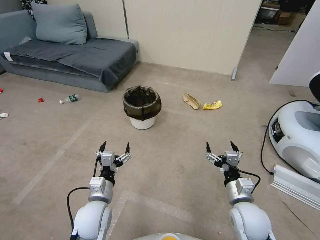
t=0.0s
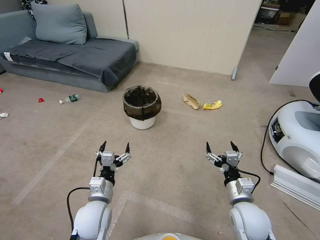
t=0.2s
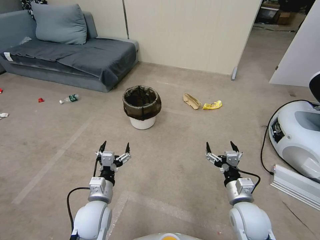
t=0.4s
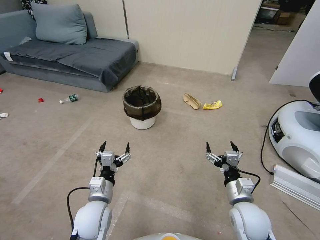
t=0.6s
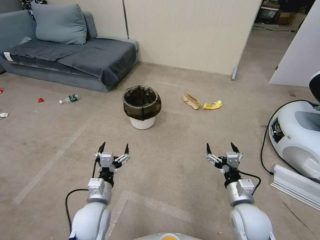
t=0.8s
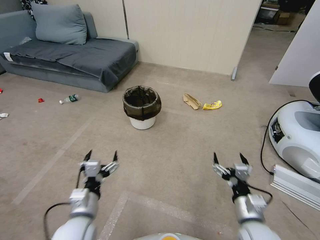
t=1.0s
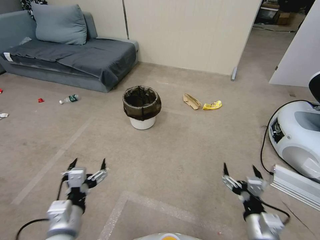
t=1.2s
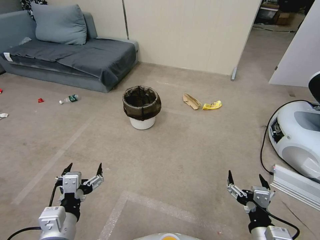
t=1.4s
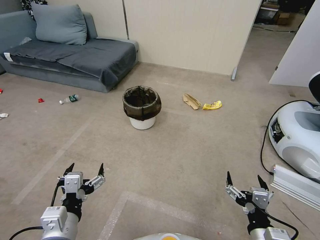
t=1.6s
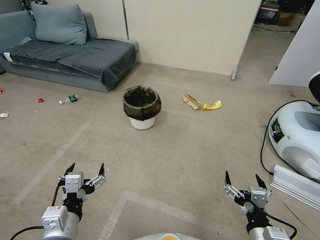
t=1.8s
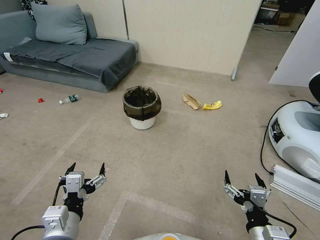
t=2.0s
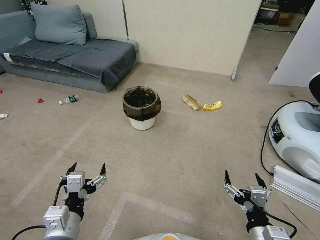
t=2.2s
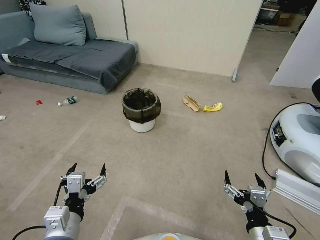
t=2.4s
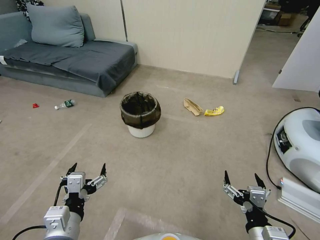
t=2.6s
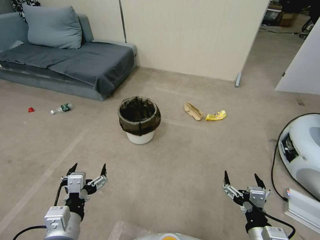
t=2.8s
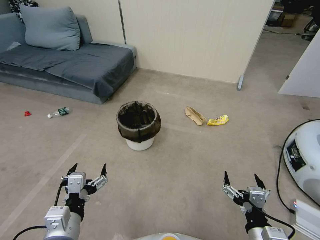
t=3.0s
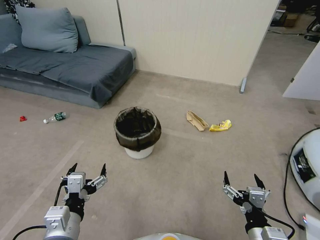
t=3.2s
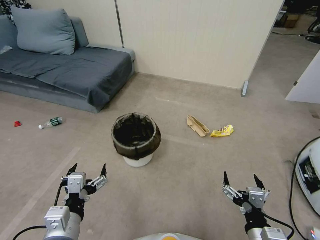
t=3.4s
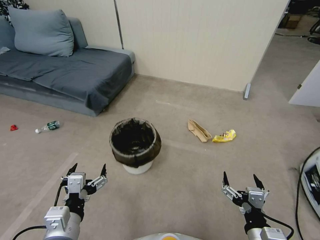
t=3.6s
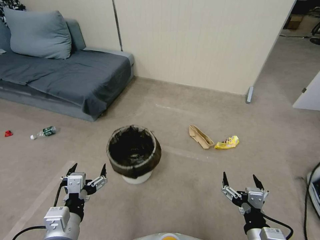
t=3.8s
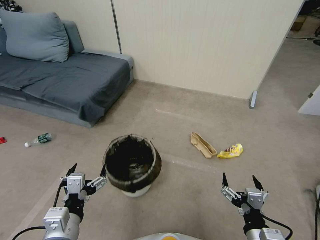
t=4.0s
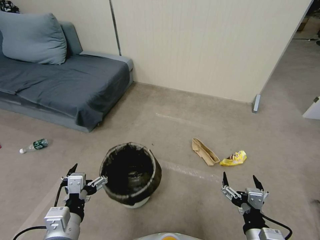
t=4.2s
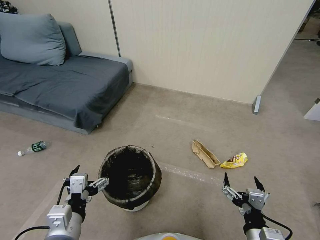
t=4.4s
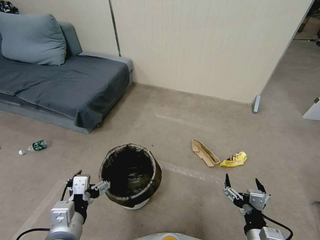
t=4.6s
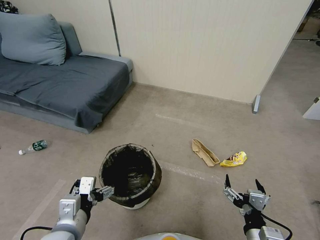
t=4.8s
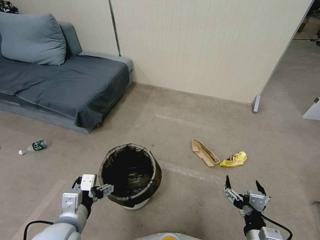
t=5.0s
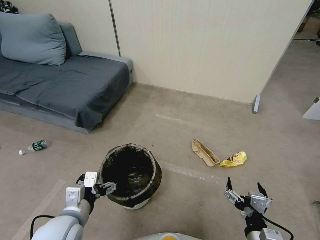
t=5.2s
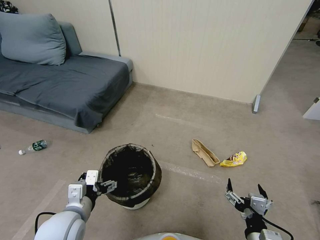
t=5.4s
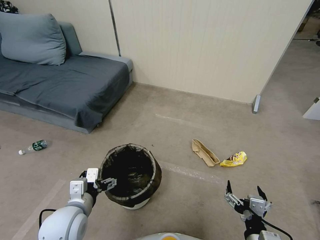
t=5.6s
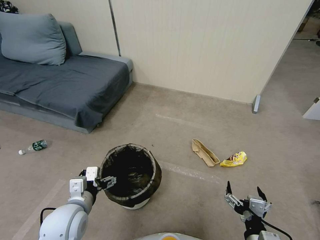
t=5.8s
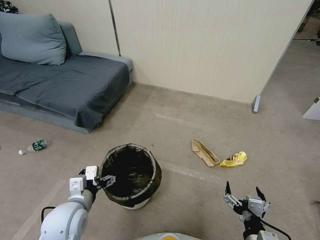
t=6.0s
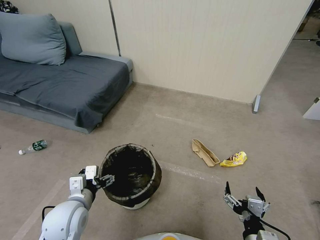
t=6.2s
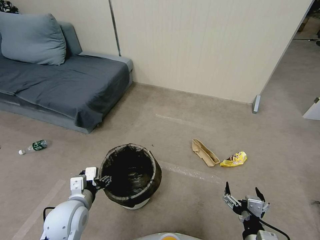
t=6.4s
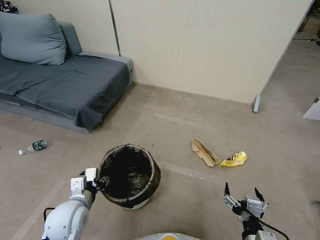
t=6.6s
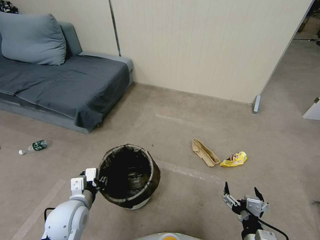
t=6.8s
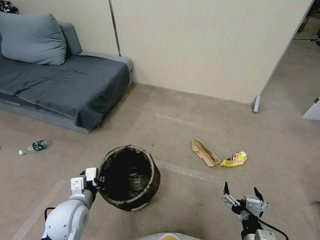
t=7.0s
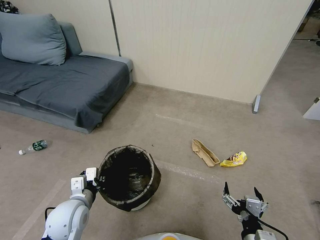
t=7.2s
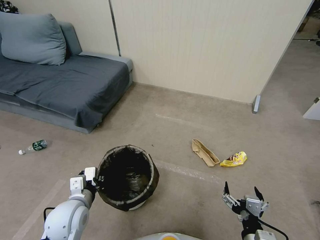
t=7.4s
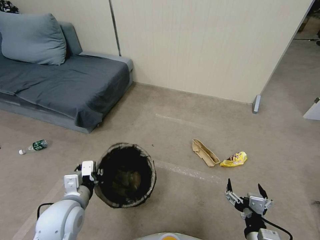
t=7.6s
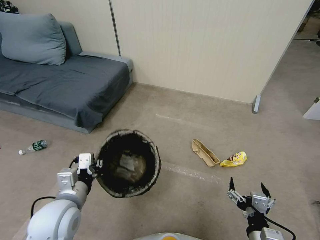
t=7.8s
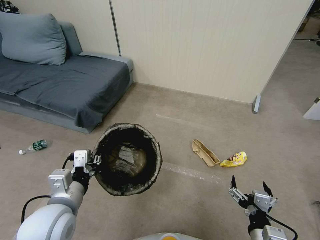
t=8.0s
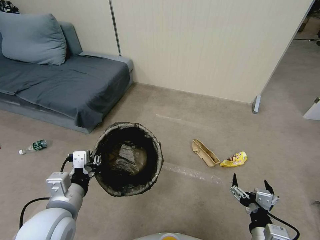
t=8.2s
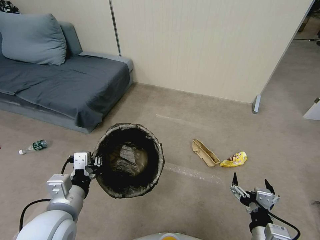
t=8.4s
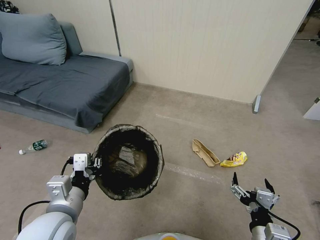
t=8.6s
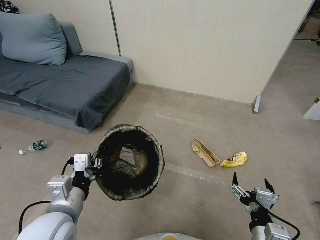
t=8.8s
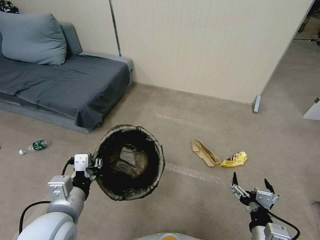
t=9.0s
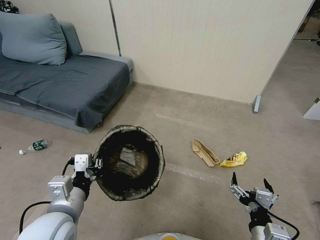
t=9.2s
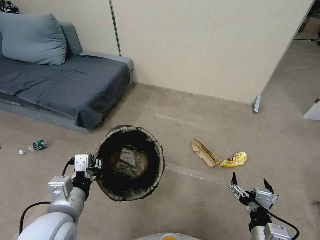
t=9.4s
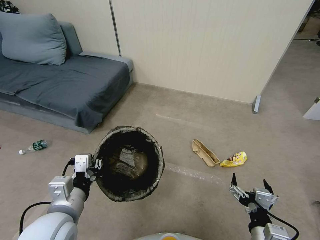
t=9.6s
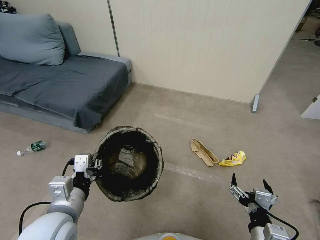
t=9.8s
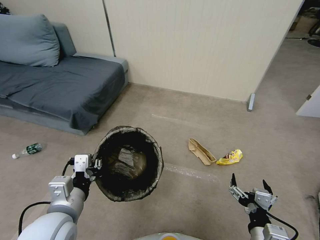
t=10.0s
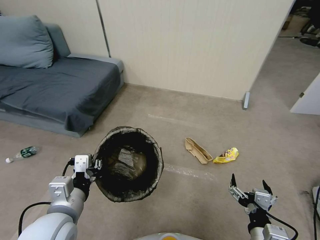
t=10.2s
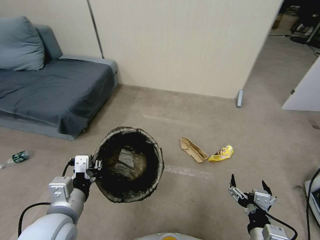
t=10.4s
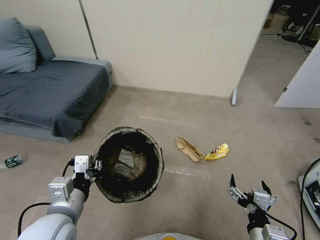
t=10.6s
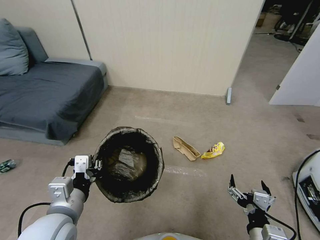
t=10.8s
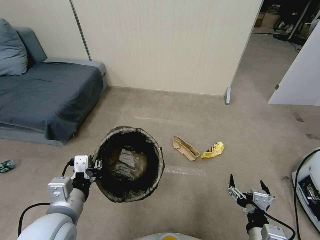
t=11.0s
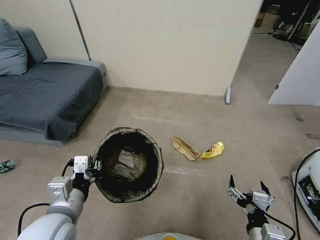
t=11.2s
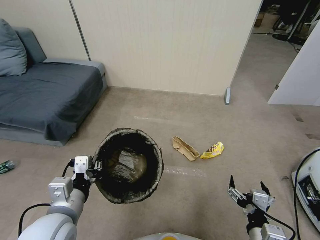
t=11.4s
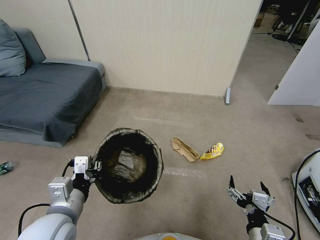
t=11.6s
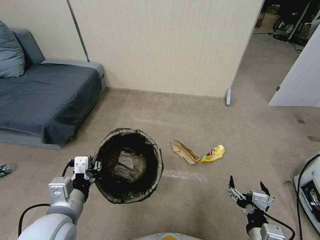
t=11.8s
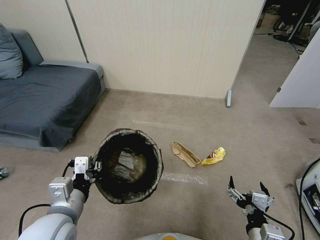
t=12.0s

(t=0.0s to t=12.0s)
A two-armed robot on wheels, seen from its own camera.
Task of the whole recording: Pick up the trash bin, then pick up the garbage from the floor and place it into the trash bin.
t=4.4s - t=6.0s: The left gripper heads forward, covering about 10 cm.
t=6.0s - t=7.6s: The left gripper closes.
t=7.6s - t=9.0s: The left gripper travels upward by about 5 cm.

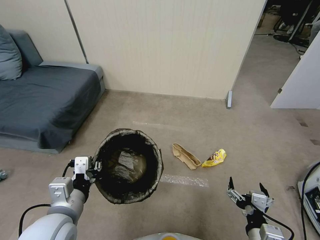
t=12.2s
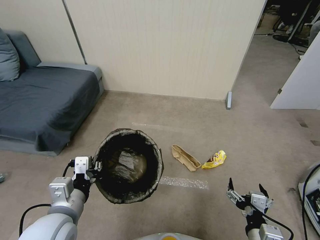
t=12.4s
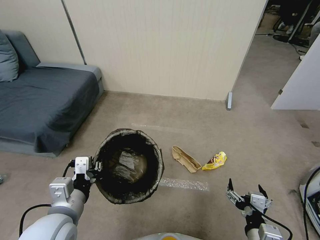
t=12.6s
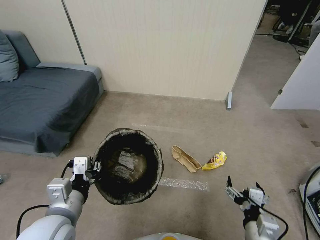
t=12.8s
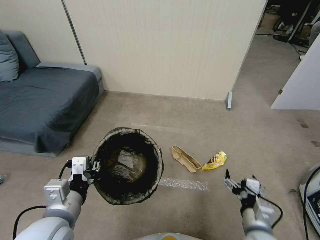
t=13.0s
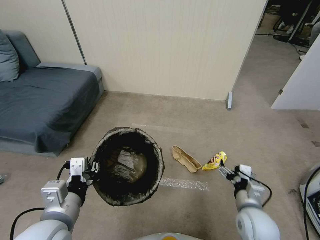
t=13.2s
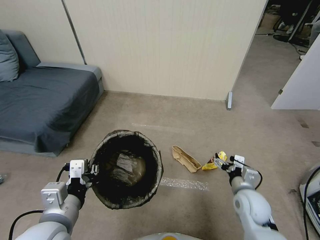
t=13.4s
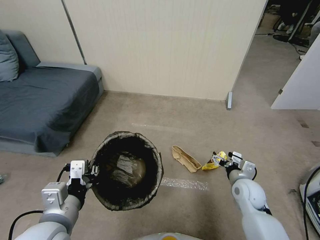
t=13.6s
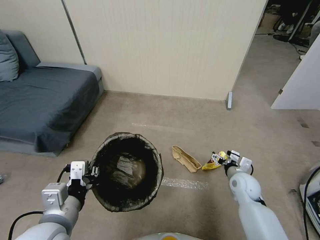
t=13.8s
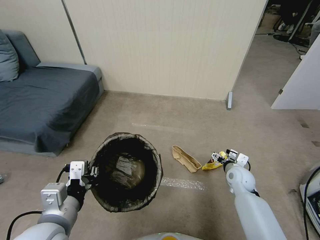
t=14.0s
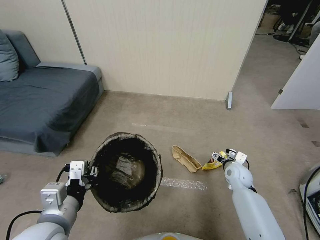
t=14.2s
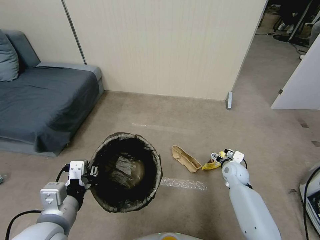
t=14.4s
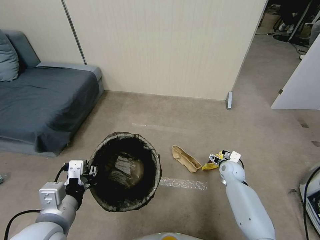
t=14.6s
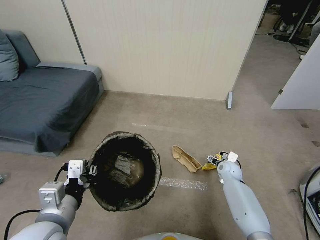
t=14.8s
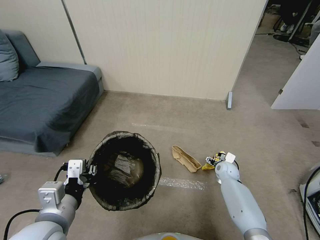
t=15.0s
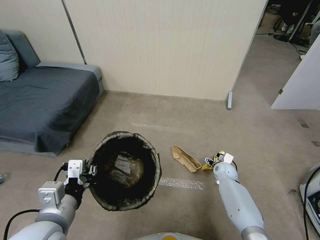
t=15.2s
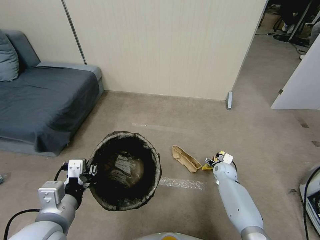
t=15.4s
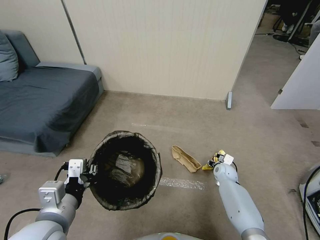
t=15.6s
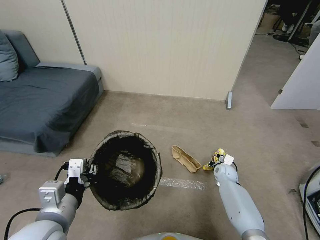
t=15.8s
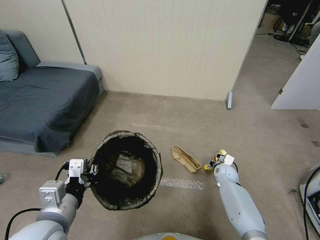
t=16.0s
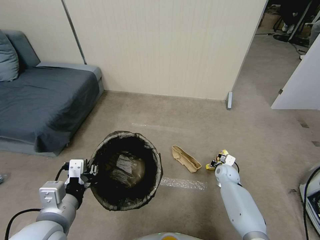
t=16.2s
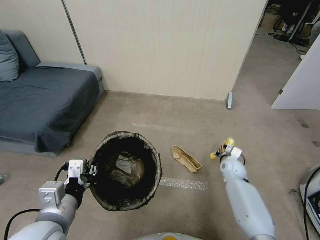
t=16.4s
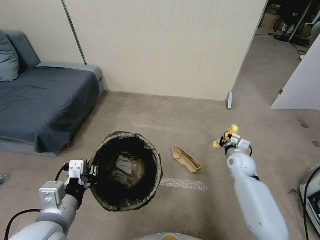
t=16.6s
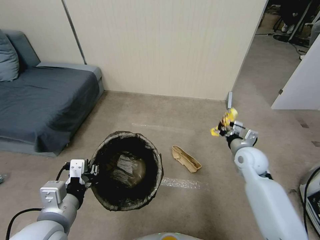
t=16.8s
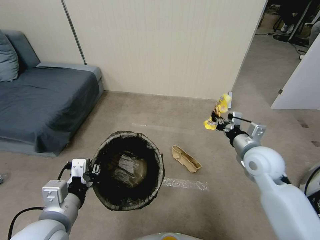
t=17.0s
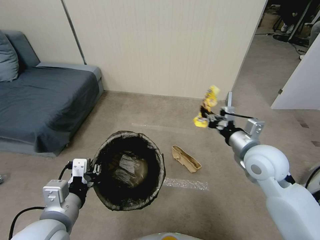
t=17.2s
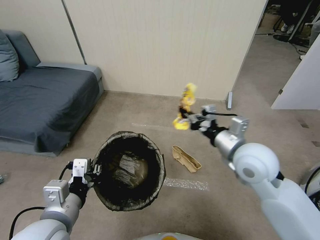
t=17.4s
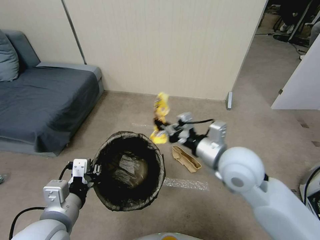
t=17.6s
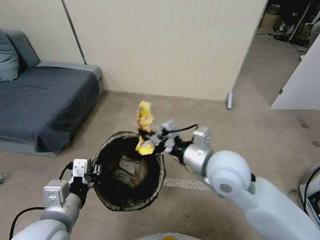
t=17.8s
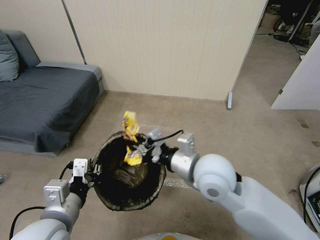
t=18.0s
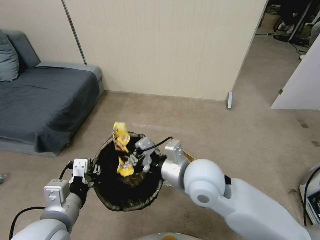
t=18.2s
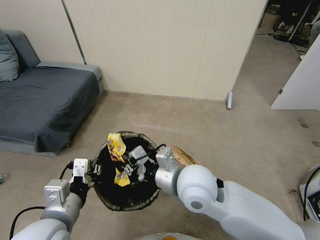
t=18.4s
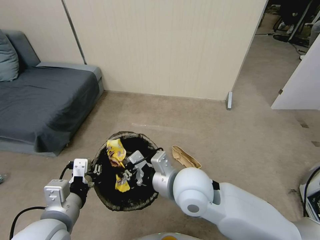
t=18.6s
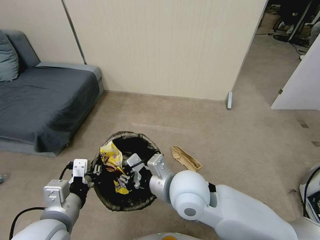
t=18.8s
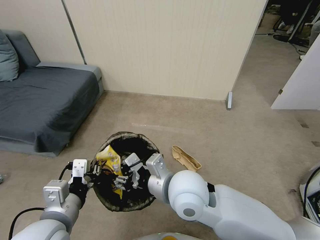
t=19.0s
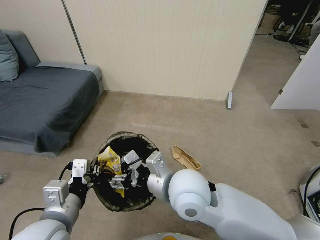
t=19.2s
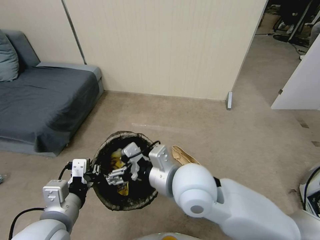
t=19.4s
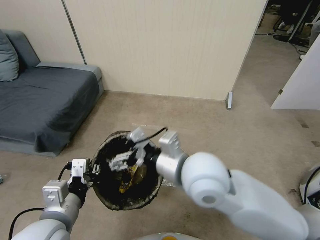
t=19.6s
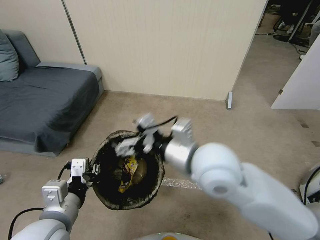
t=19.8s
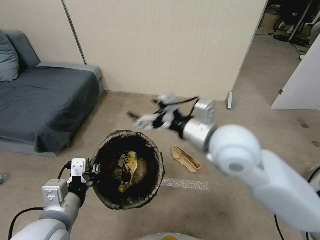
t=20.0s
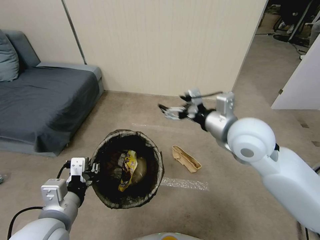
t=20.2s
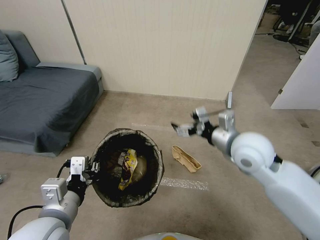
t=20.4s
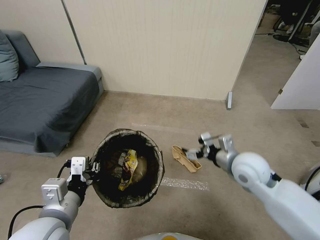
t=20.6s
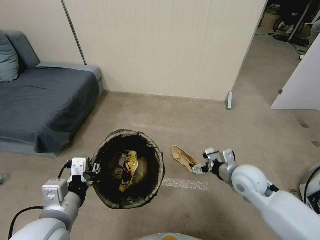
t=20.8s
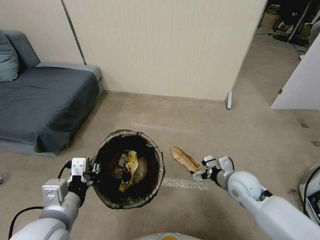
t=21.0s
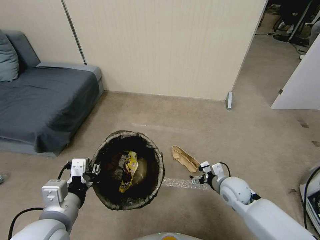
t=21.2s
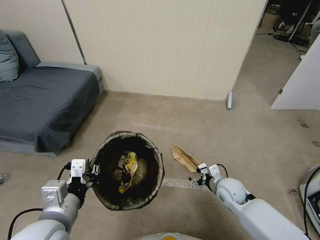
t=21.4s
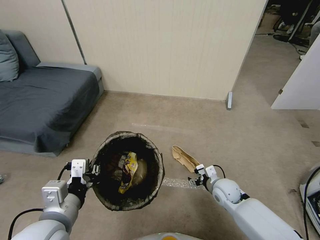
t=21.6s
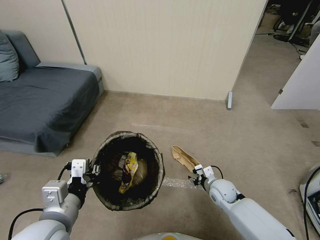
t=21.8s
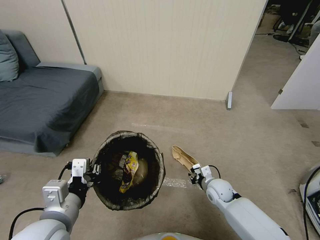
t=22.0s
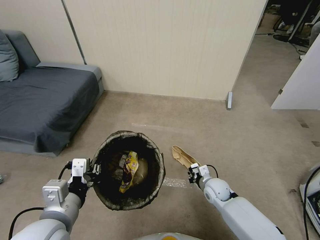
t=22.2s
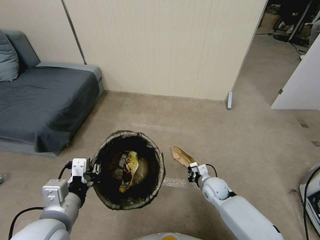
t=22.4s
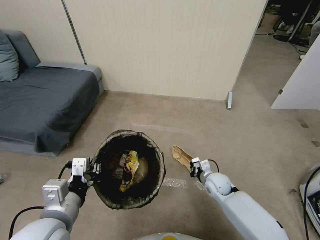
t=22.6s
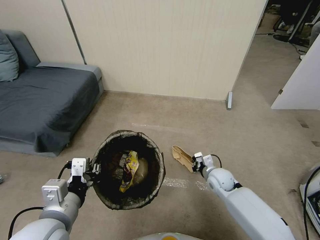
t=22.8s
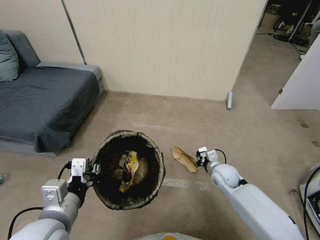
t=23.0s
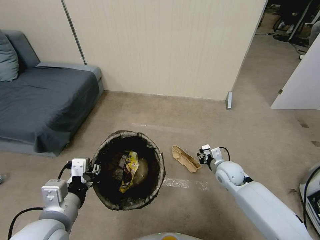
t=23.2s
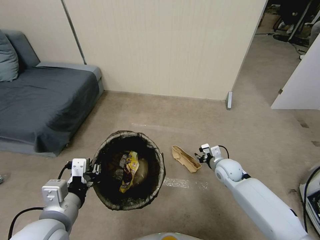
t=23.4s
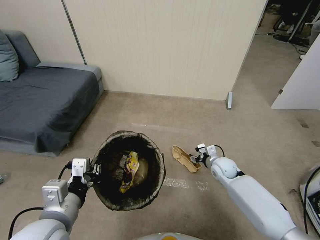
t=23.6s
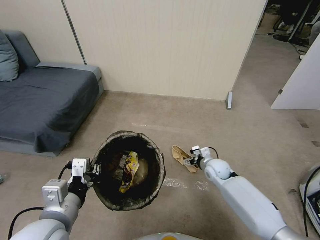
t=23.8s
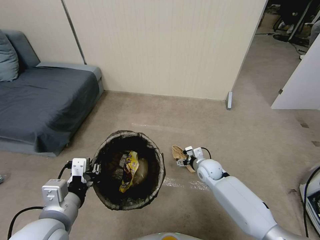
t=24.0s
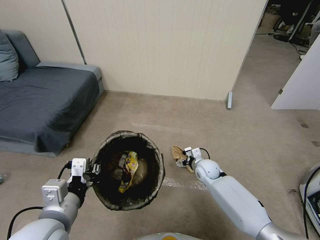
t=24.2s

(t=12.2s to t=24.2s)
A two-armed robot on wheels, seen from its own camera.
Task of the whole recording: Pick up the trash bin, then pick up the garbage from the floor and place it into the trash bin.
t=12.2s - t=13.8s: The right gripper heads forward, covering about 25 cm.
t=13.8s - t=15.2s: The right gripper heads downward and forward, covering about 15 cm.
t=15.2s - t=16.6s: The right gripper shifts roughly 10 cm upward, and closes its fingers.
t=16.6s - t=18.2s: The right gripper shifts roughly 35 cm to the left, upward and backward.
t=18.2s - t=19.8s: The right gripper heads upward, covering roughly 10 cm, and opens its fingers.
t=19.8s - t=21.2s: The right gripper moves downward and to the right, some 35 cm.
t=21.2s - t=22.6s: The right gripper shifts about 5 cm downward, and closes.
t=22.6s - t=24.2s: The right gripper shifts about 5 cm forward, and opens its fingers.
